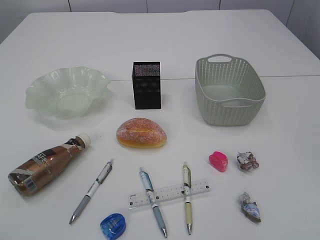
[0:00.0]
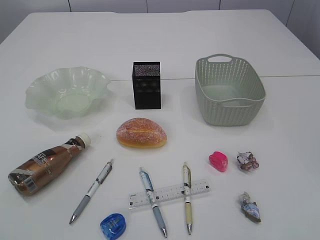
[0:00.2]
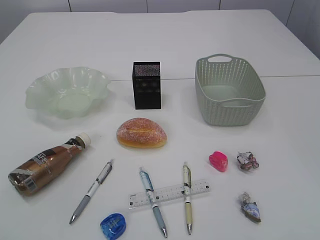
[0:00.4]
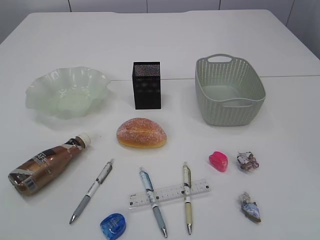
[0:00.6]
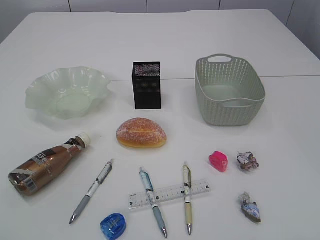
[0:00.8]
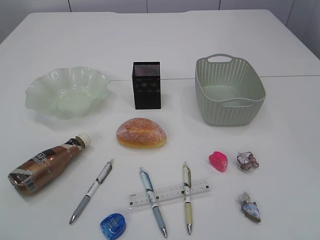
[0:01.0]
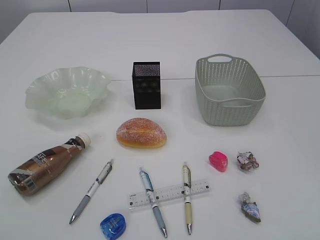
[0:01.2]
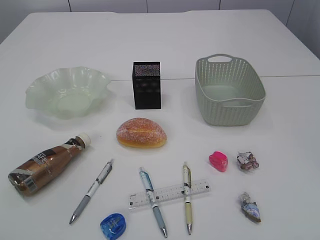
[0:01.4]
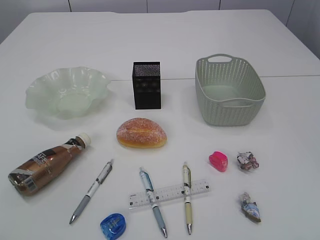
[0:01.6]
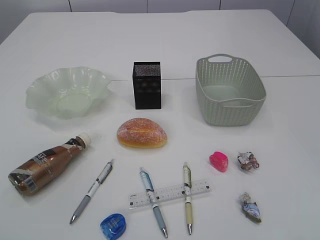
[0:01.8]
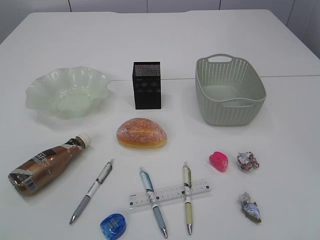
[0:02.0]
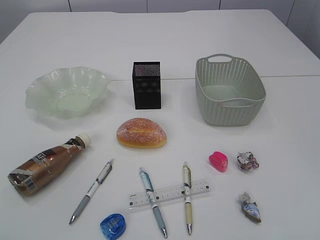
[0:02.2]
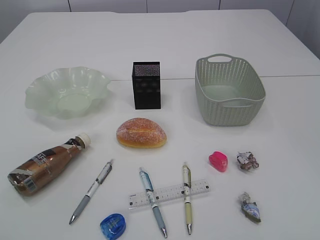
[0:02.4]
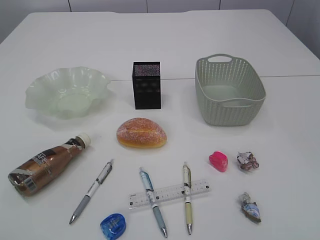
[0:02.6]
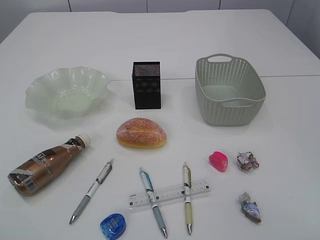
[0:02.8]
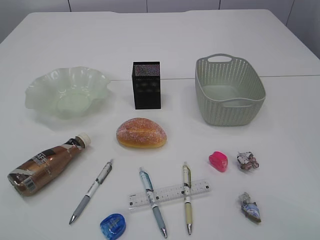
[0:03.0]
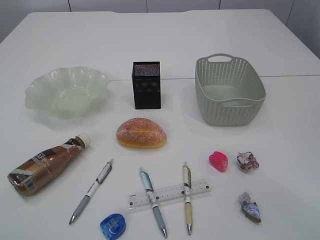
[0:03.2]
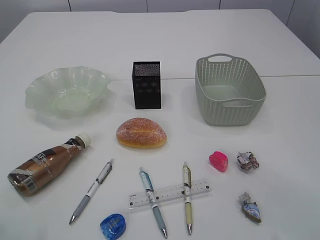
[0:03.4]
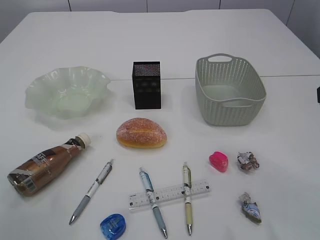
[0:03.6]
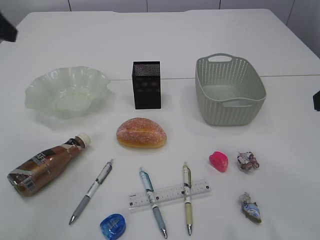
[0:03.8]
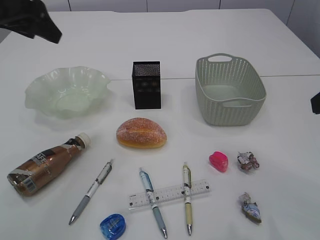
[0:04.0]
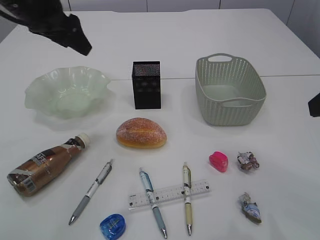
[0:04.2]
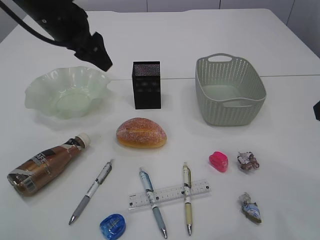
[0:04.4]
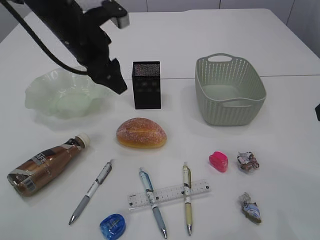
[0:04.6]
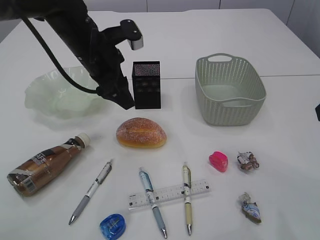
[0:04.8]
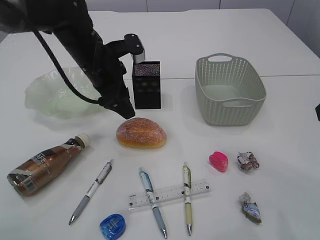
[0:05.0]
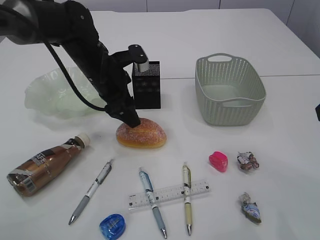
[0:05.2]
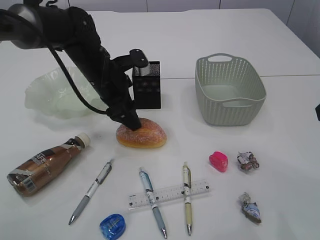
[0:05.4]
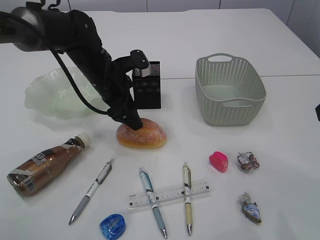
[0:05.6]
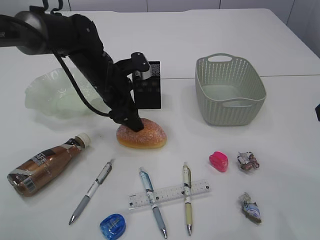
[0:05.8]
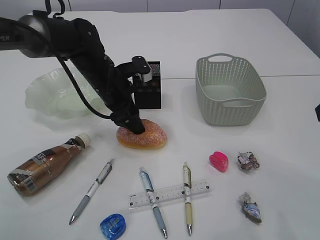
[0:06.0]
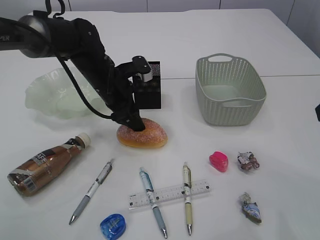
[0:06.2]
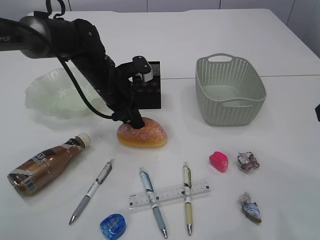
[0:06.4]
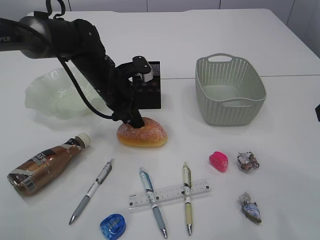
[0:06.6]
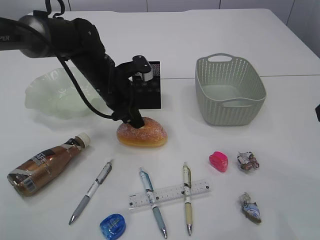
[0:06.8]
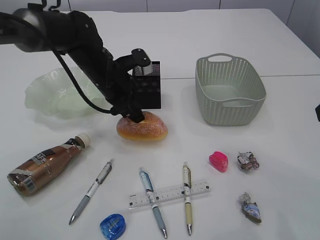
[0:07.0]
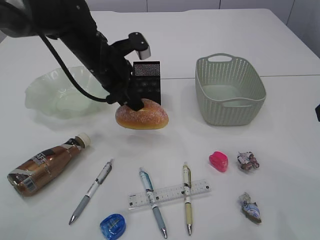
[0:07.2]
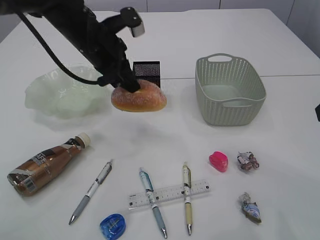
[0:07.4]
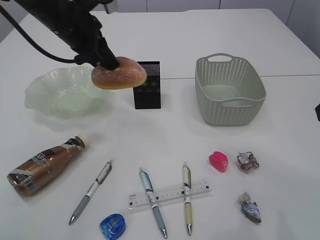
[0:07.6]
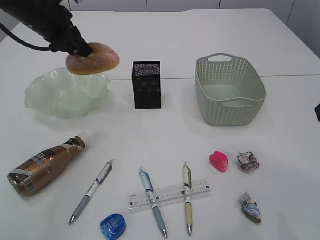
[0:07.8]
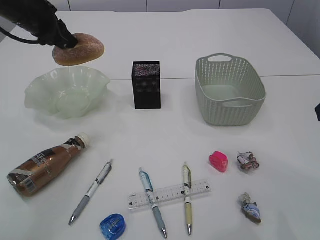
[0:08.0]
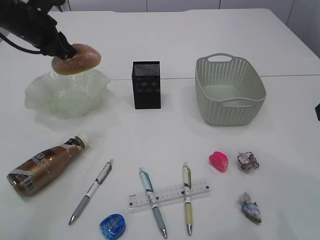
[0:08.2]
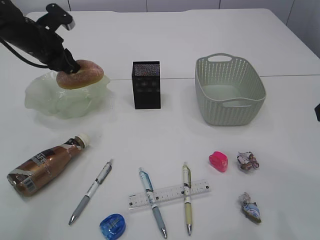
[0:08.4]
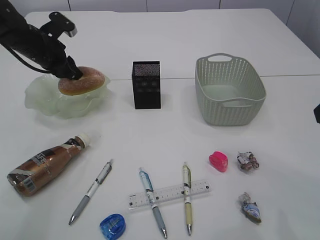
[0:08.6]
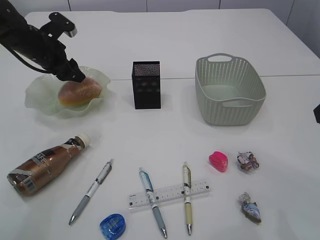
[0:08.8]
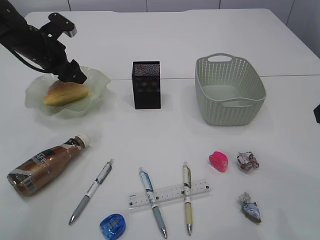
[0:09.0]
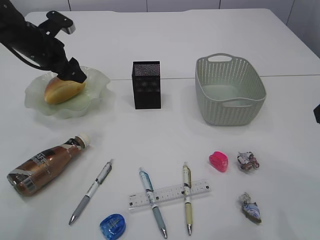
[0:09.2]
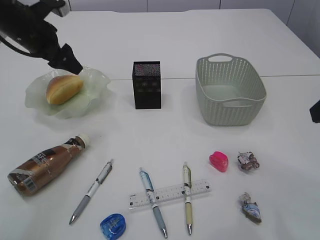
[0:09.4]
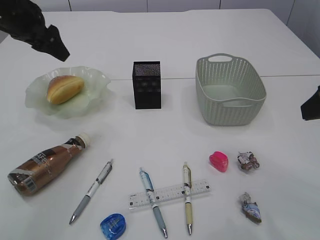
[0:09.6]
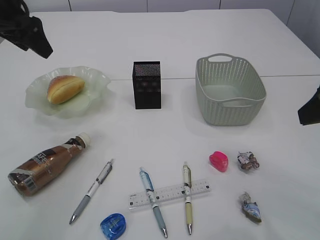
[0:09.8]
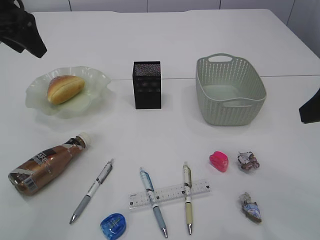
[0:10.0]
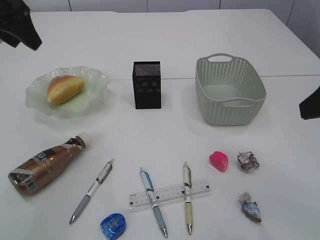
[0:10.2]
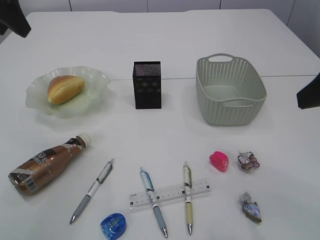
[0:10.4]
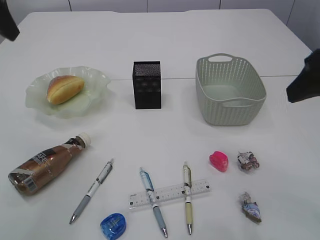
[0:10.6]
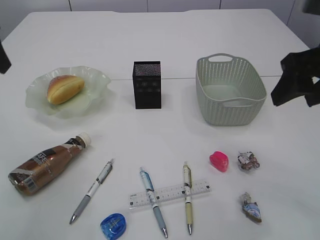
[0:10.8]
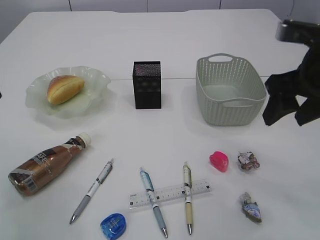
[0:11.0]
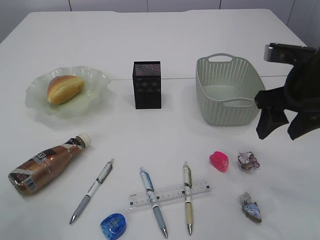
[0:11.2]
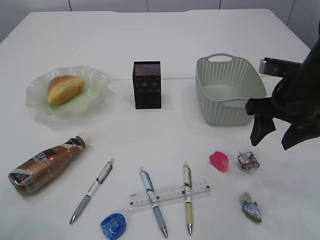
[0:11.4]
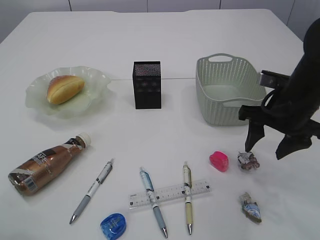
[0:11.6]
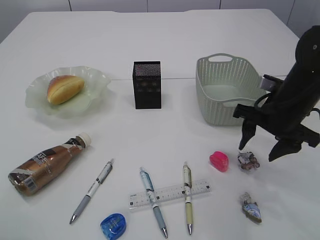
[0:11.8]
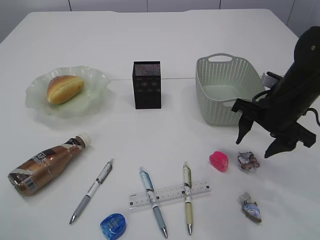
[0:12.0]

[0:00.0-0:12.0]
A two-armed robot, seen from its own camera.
Step, 0:07.2 to 0:09.2: place the bread in the plate.
0:03.0 to 0:04.4: The left gripper is displaced forward and to the right by about 40 cm.
0:04.4 to 0:06.0: The left gripper is displaced downward and to the right by about 15 cm.
0:06.0 to 0:07.6: The left gripper travels upward and to the left by about 15 cm, and closes its fingers.
0:07.6 to 0:09.0: The left gripper is displaced to the left, downward and forward by some 15 cm, and opens up.
0:09.0 to 0:10.4: The left gripper is displaced upward and backward by some 20 cm.
0:10.4 to 0:12.0: The left gripper shifts some 20 cm backward; the right gripper is displaced downward and forward by roughly 20 cm.

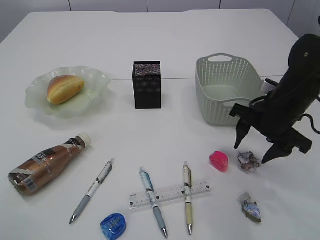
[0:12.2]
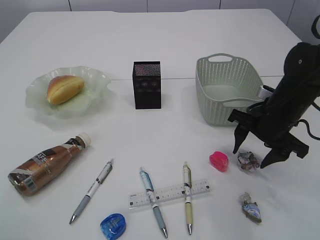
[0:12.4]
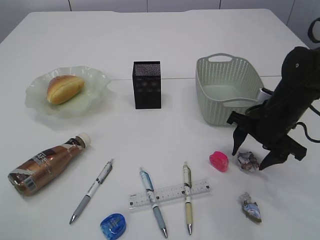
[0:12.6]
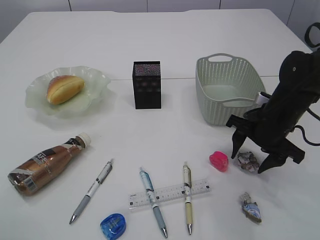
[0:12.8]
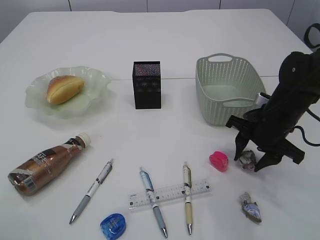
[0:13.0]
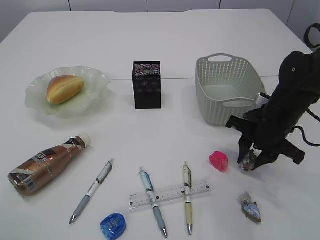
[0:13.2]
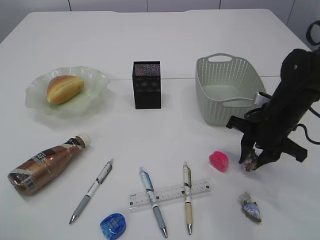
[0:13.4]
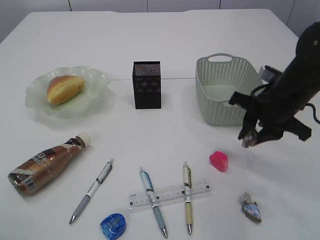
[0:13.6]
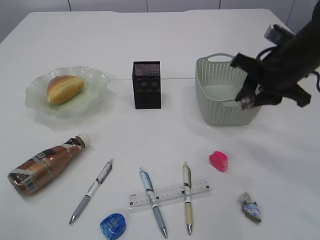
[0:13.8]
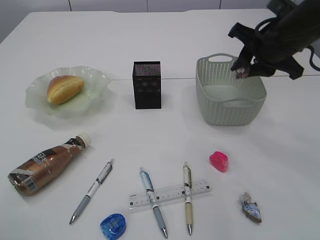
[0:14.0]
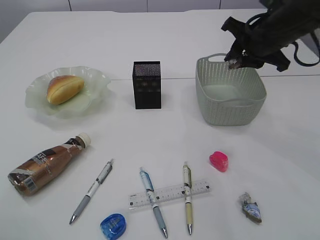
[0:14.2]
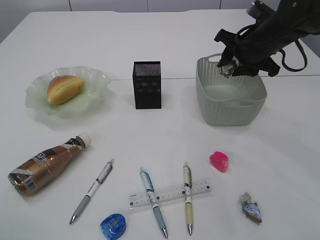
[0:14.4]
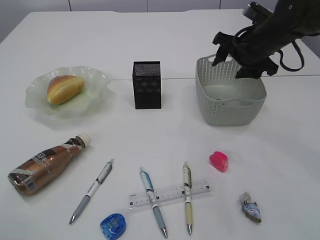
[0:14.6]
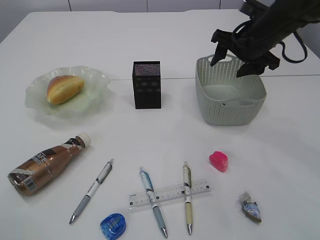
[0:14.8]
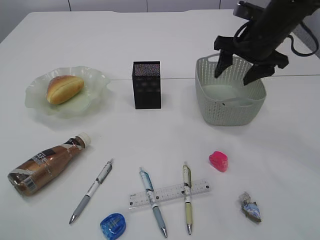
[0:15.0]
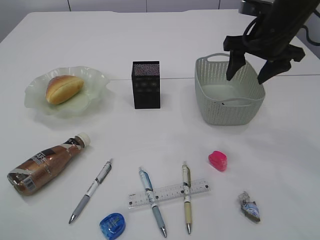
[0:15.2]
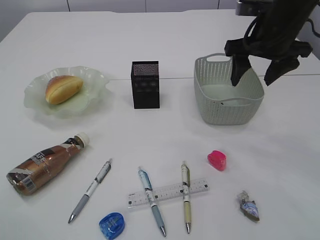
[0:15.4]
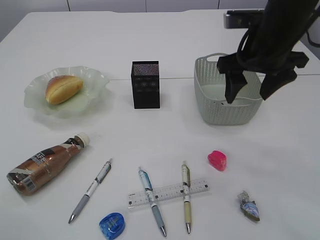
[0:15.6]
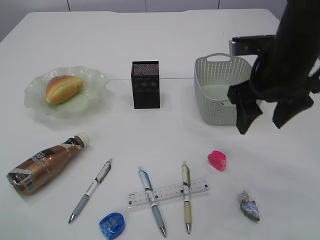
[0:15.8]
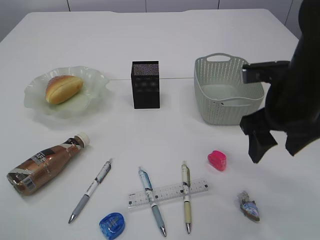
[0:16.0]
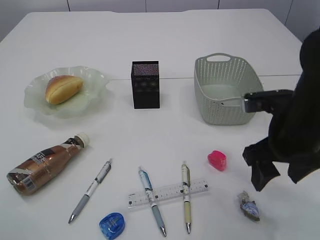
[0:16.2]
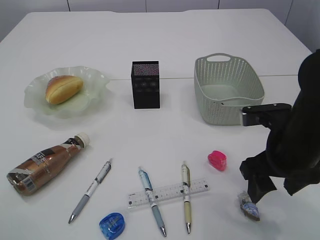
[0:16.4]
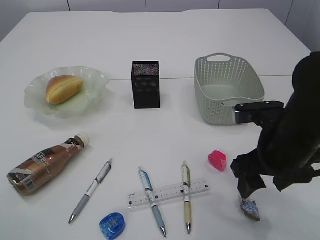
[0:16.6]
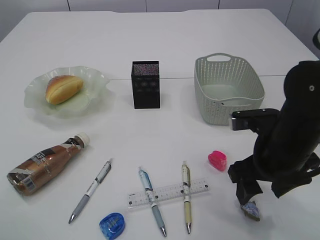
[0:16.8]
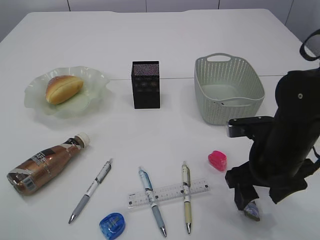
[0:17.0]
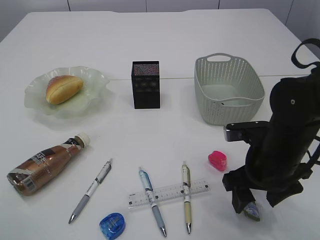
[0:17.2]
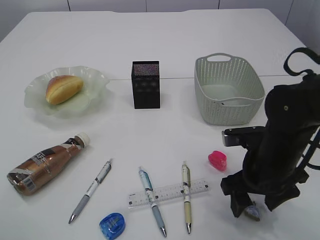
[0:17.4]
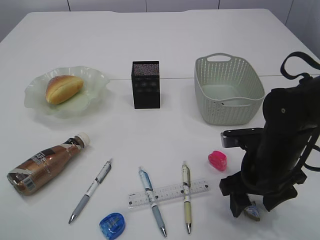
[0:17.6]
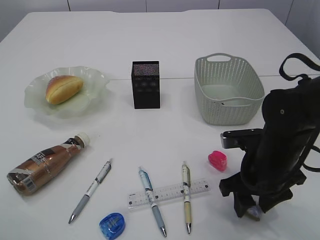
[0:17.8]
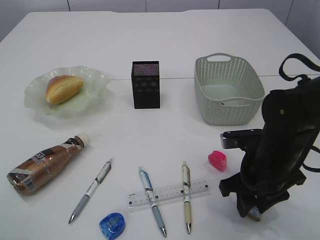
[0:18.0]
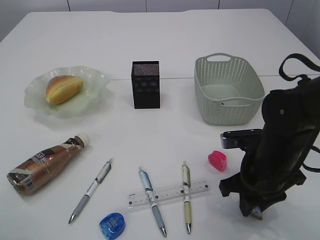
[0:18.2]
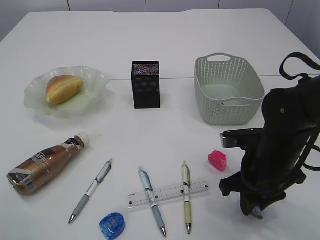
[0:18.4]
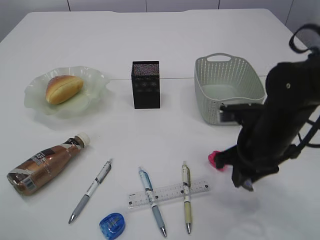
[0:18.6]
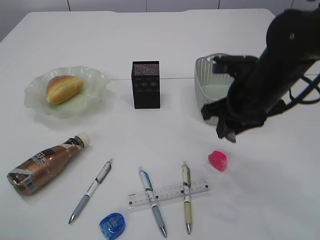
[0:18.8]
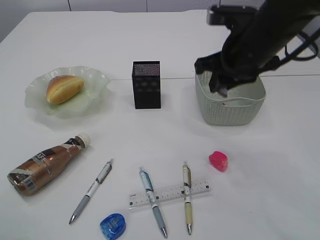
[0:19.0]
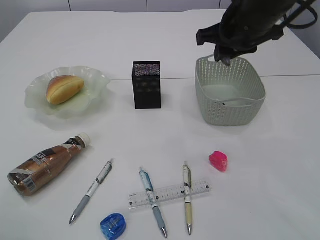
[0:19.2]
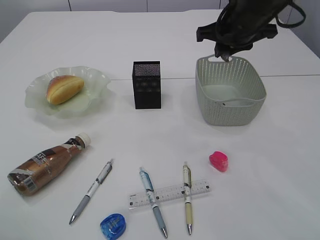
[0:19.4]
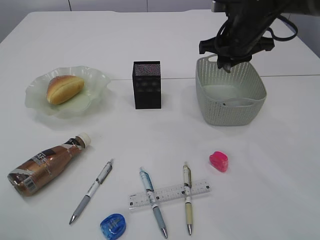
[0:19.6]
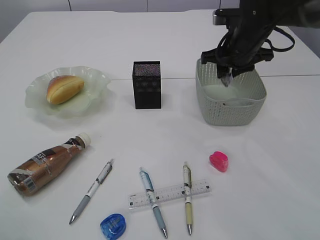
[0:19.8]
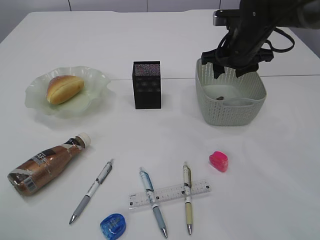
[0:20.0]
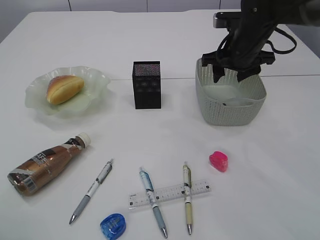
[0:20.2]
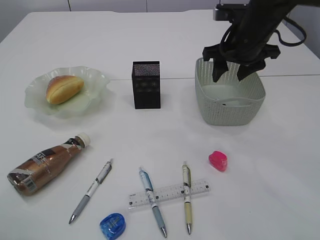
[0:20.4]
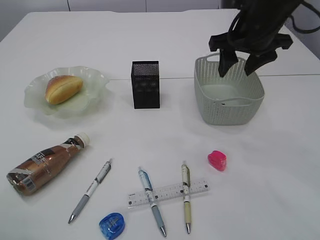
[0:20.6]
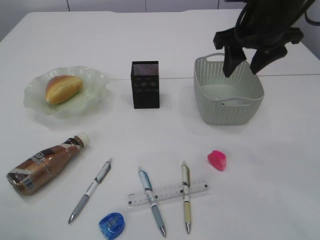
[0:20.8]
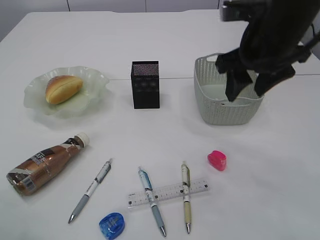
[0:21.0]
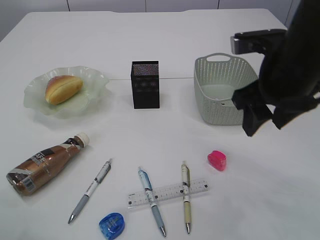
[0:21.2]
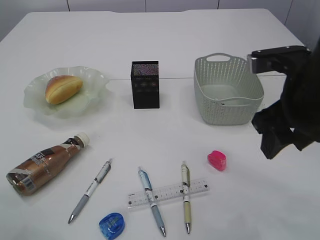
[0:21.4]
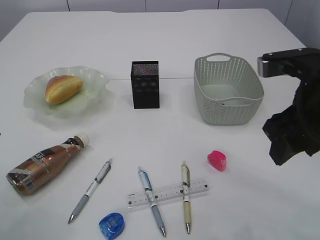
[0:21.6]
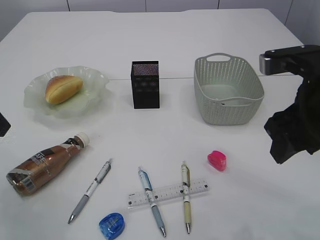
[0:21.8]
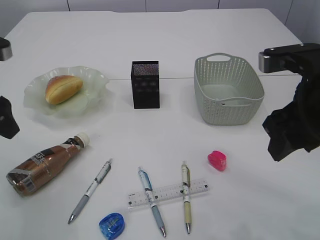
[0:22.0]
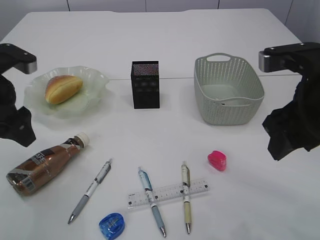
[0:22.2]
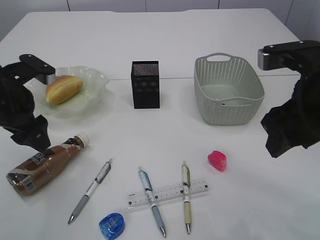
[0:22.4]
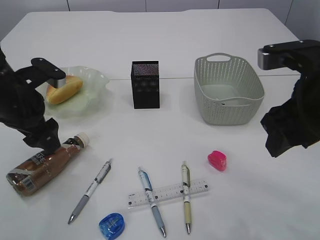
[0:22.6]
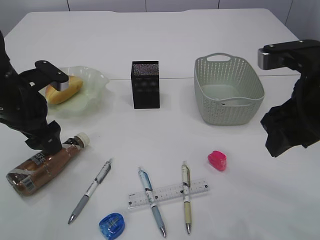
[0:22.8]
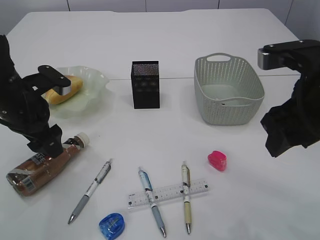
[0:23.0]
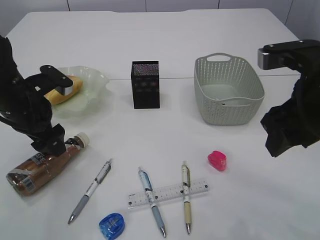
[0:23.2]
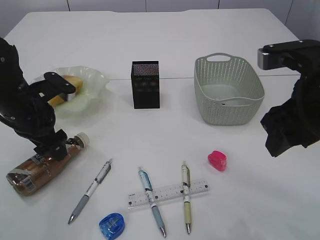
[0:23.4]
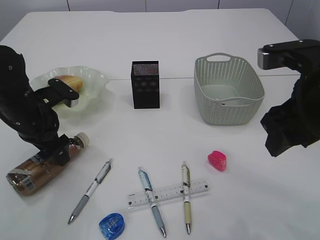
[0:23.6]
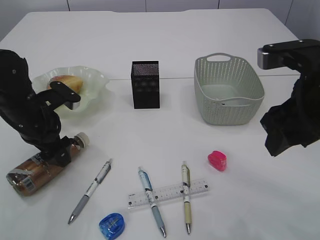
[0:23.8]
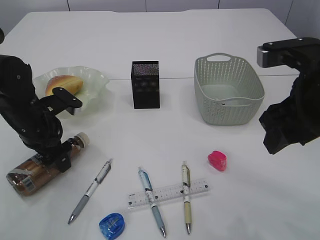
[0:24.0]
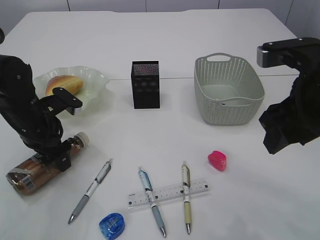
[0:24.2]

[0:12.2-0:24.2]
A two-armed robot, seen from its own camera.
Step, 0:13.6 to 0:15.4: Place the waste paper in the basket.
Step, 0:15.6 to 0:18.4: Pick up the waste paper.
Step, 0:18.6 to 0:19.8: Place the waste paper in the basket.
0:12.2 to 0:13.8: The right gripper shifts approximately 5 cm upward, and closes its fingers.
0:13.8 to 0:15.2: The right gripper heads forward, covering about 5 cm, and opens.
0:15.2 to 0:16.6: The right gripper heads backward and downward, covering about 20 cm.
0:16.6 to 0:18.2: The right gripper goes approximately 5 cm downward, and closes.
0:18.2 to 0:19.8: The right gripper moves forward and upward, roughly 20 cm.
0:19.8 to 0:21.2: The right gripper travels backward by roughly 15 cm, and opens.
0:21.2 to 0:22.6: The right gripper heads backward, covering some 5 cm, while the left gripper heads forward, downward and to the right, covering approximately 20 cm, and opens.
0:22.6 to 0:24.2: The left gripper shifts approximately 5 cm downward.
